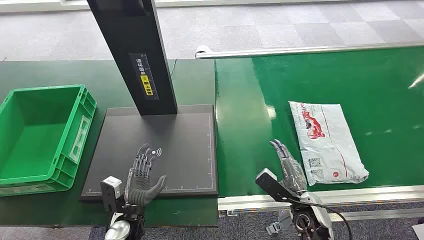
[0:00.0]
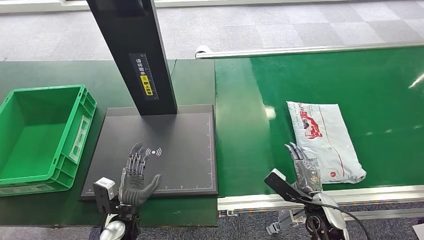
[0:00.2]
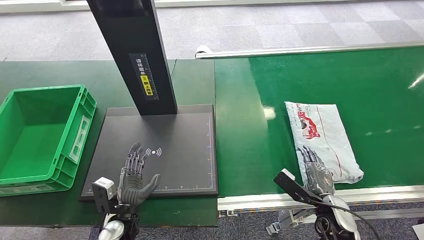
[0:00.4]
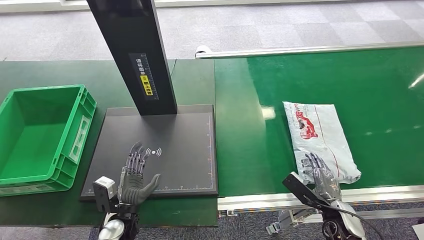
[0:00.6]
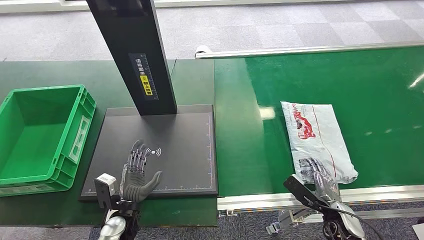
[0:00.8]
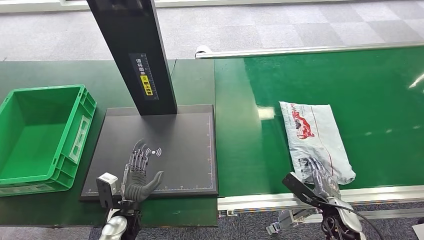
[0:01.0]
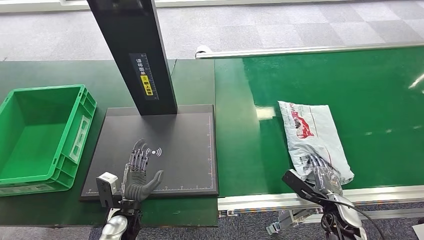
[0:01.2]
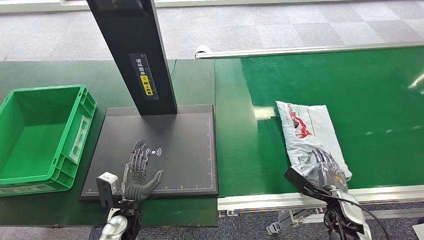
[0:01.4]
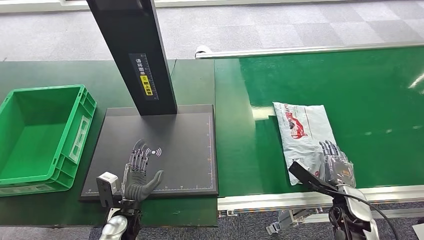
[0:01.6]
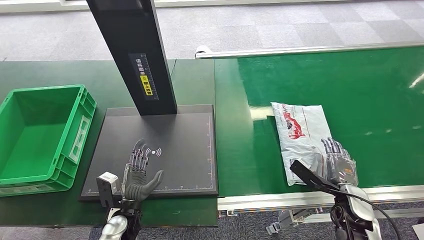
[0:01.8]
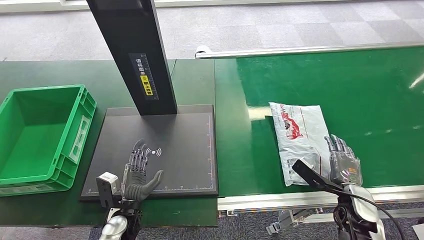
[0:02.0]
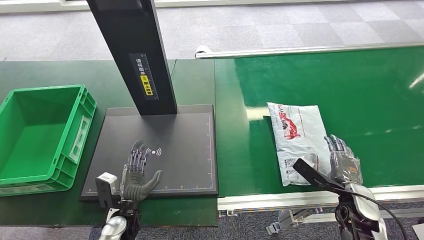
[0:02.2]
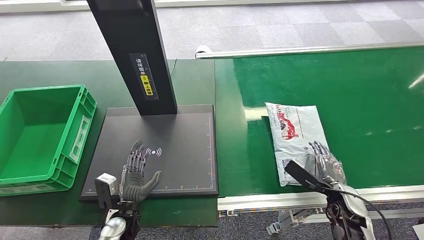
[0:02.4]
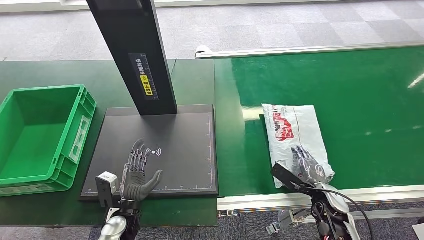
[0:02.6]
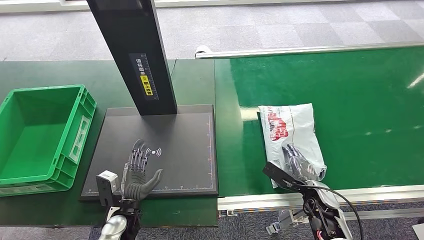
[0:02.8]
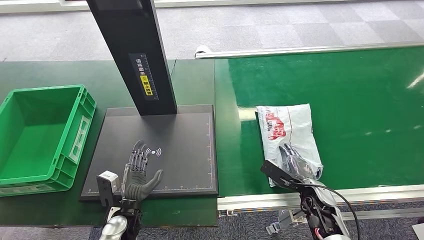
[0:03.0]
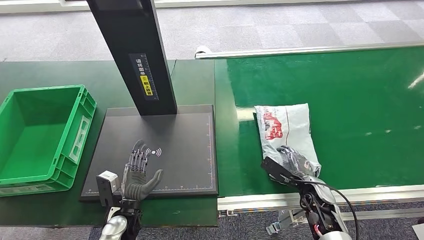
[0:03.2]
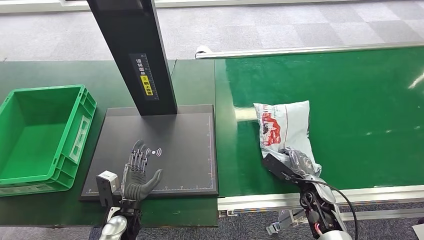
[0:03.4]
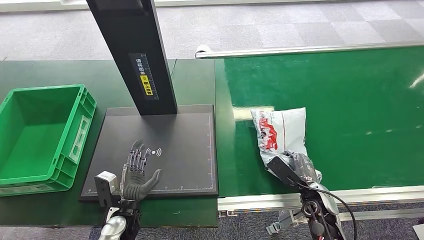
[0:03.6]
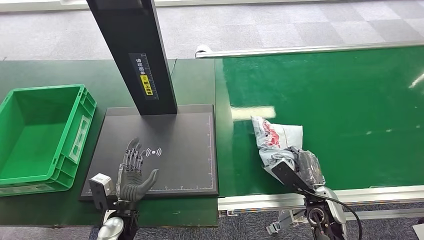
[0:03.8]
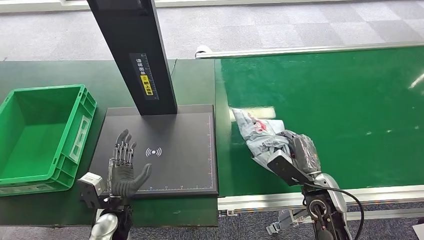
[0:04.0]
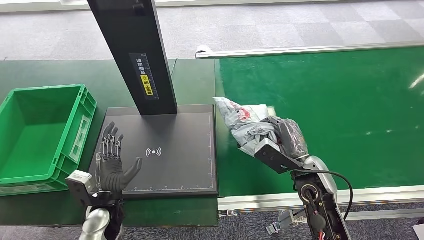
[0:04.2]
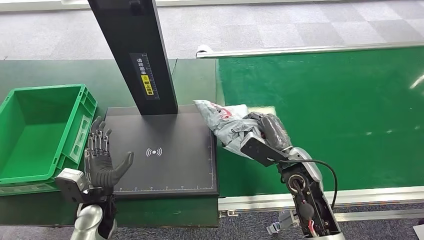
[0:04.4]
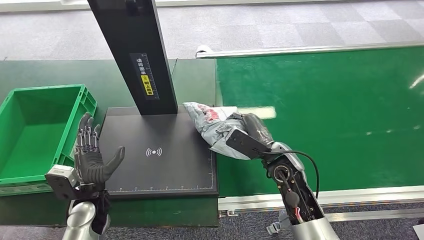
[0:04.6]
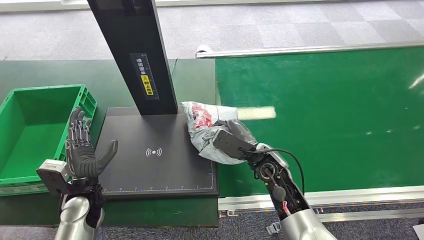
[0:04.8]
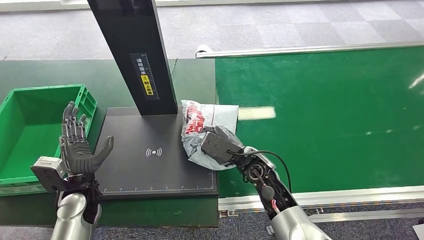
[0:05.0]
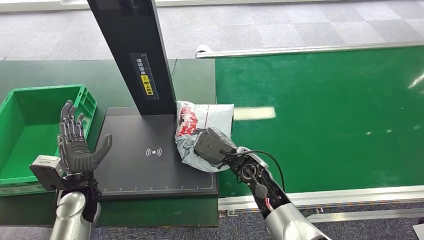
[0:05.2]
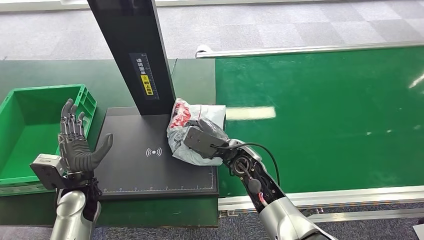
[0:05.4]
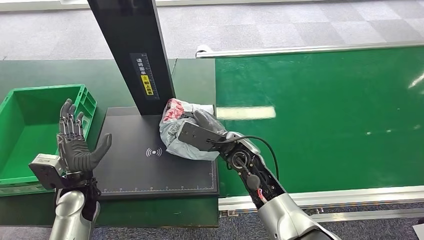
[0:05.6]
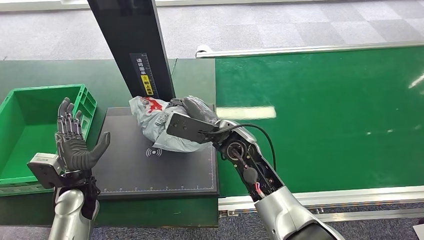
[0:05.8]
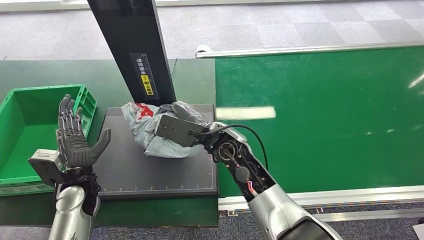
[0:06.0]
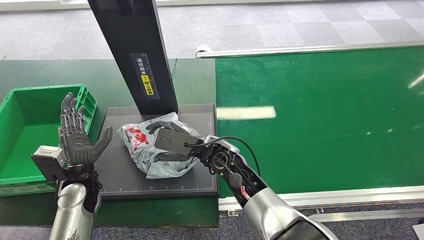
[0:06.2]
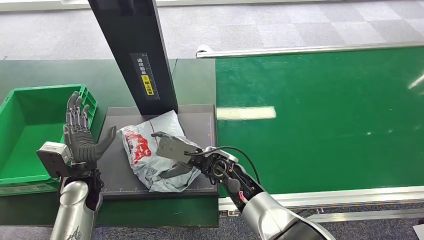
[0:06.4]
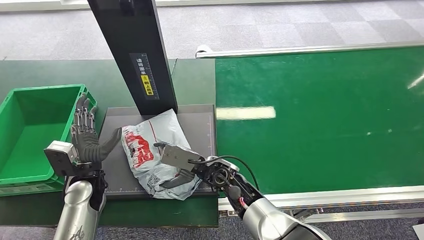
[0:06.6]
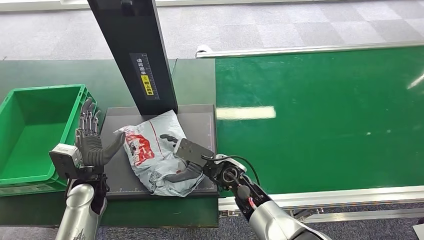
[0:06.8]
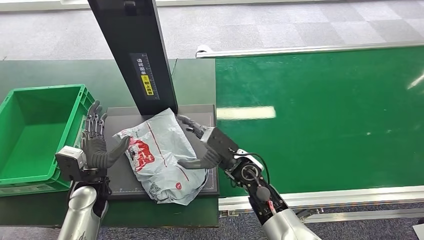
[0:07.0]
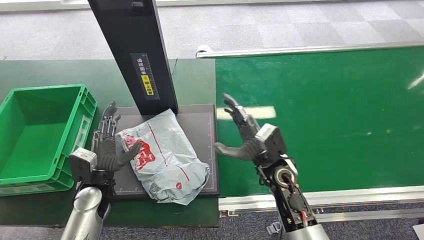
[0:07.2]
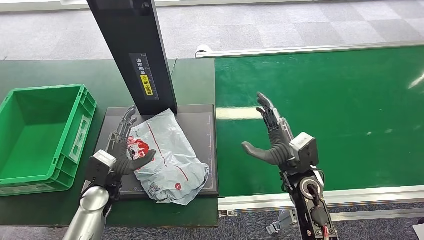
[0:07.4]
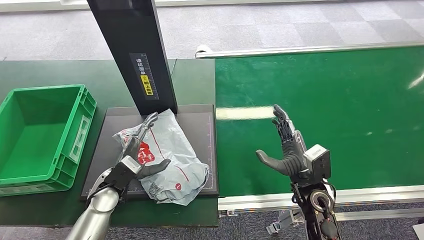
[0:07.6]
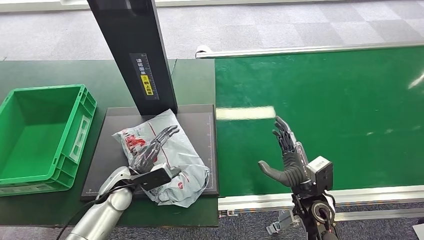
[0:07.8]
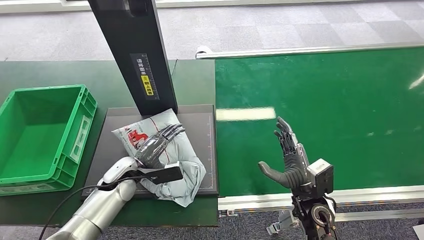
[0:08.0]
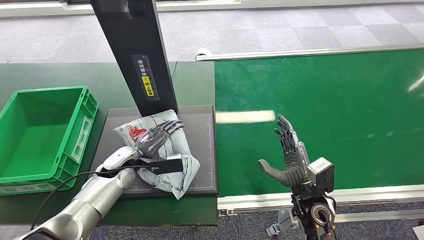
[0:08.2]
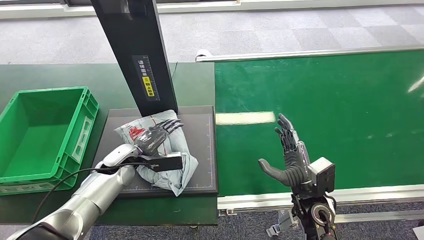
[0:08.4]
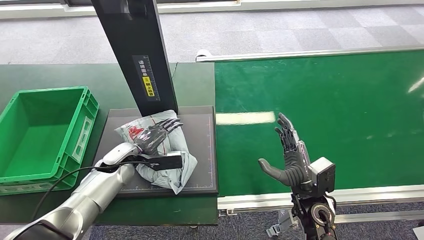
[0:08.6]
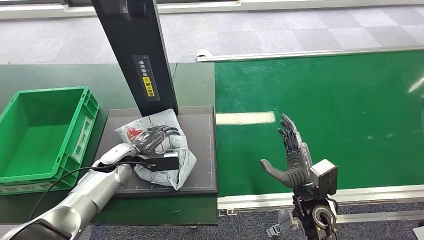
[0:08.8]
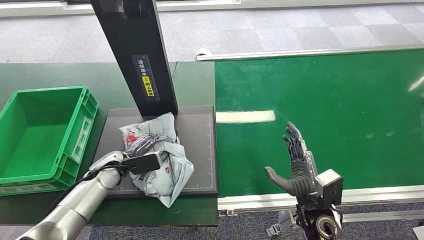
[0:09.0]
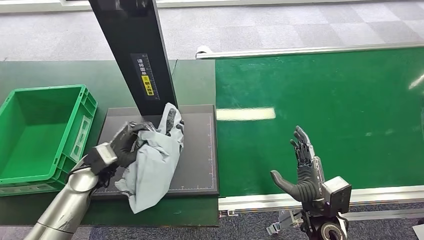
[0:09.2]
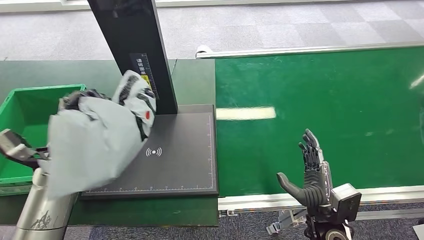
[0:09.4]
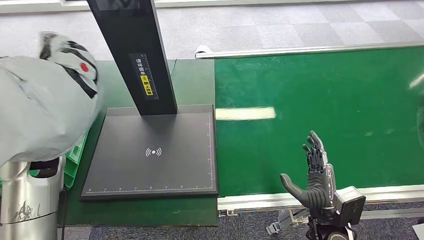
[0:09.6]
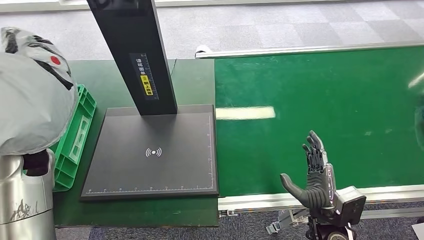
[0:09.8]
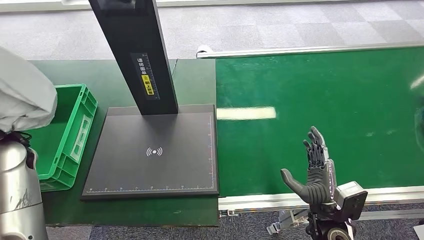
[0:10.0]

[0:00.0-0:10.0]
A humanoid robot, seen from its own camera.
Step, 0:00.0 to 0:04.6: Pick up the package from the conveyor belt.
Step, 0:04.8 to 0:07.6: Place the package onto the inbound machine.
Step, 0:07.8 to 0:09.6: Pick up the package from the inbound machine.
0:01.4 to 0:02.8: The right hand is displaced to the left by some 5 cm.
0:02.8 to 0:04.2: The left hand changes place by roughly 5 cm, while the right hand is displaced upward and to the left by some 15 cm.
0:05.8 to 0:07.2: The right hand goes some 15 cm to the right and downward.

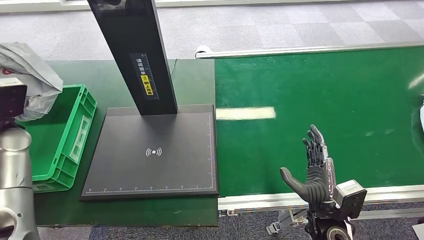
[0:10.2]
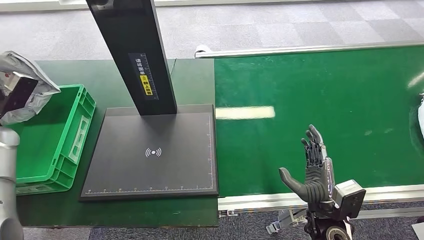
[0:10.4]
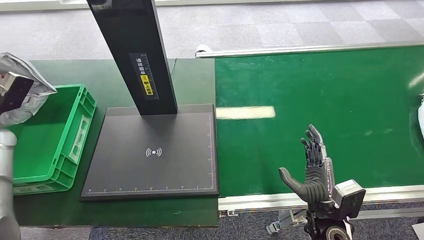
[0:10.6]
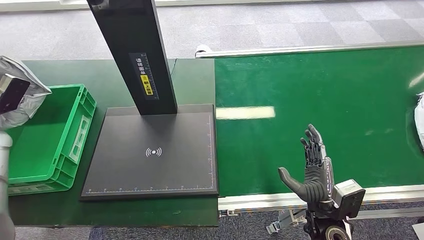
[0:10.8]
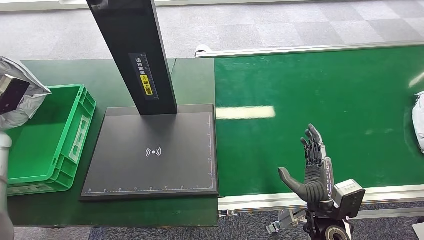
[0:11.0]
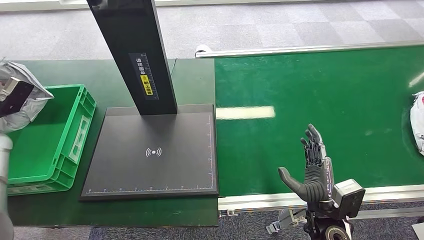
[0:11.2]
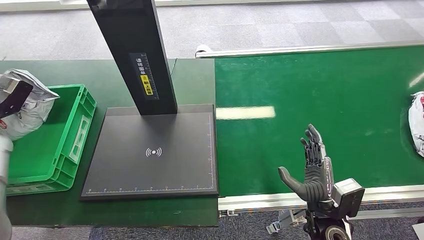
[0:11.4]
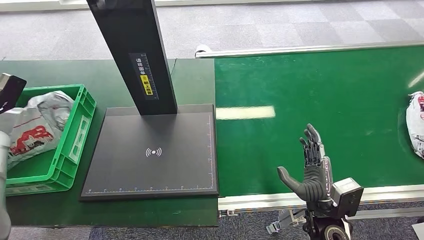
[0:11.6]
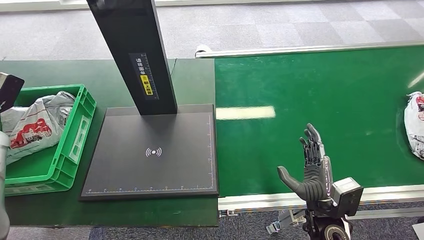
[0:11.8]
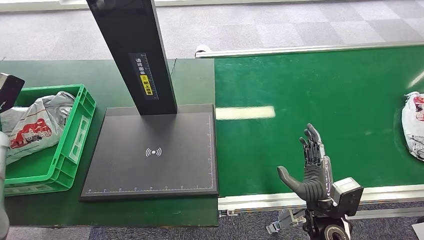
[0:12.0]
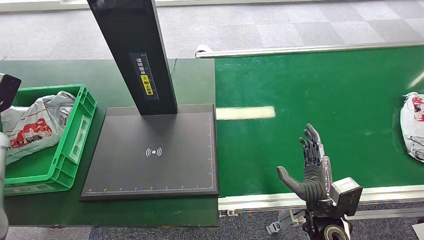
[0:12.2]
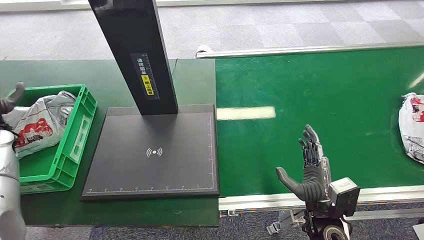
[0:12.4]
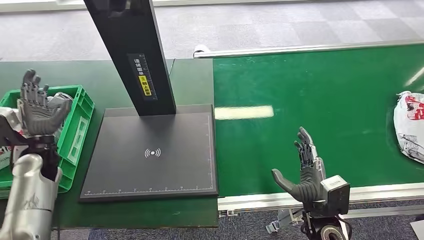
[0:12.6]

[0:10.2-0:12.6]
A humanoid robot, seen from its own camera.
Step, 0:10.2 to 0:12.4: Place the package into the parcel locker.
0:10.2 to 0:11.4: The left hand shifts some 10 cm to the left.
0:11.4 to 0:12.6: The left hand goes approximately 15 cm to the right and downward.

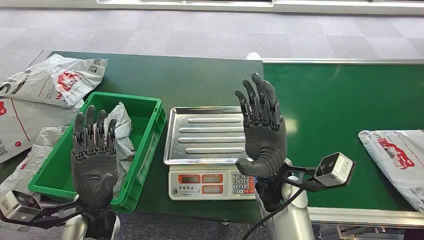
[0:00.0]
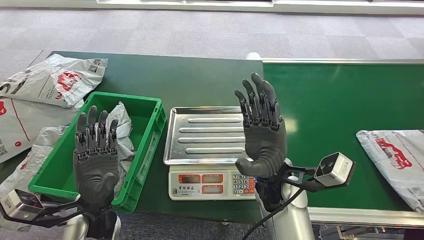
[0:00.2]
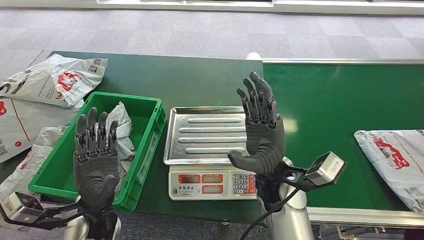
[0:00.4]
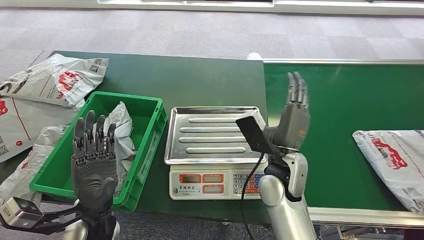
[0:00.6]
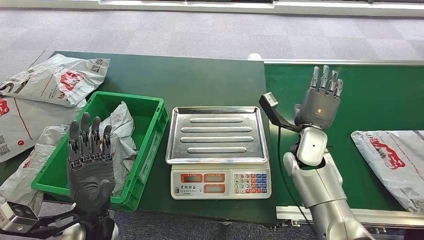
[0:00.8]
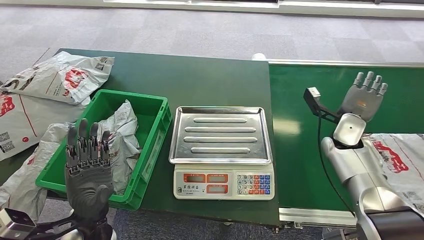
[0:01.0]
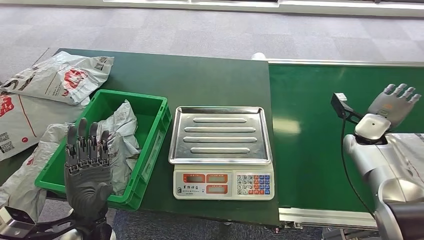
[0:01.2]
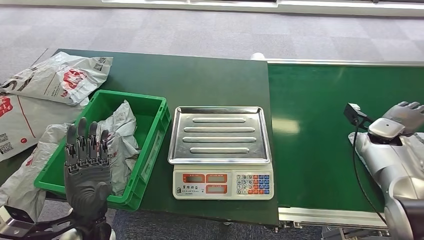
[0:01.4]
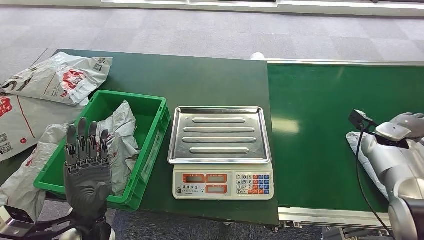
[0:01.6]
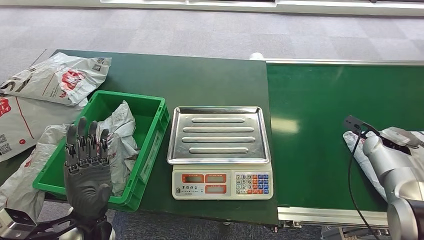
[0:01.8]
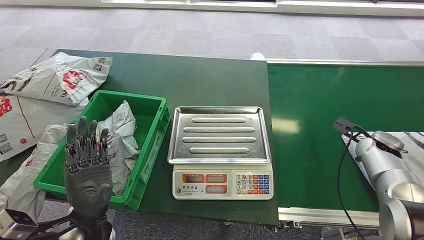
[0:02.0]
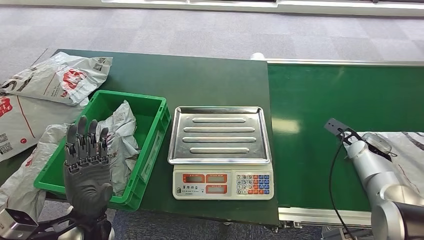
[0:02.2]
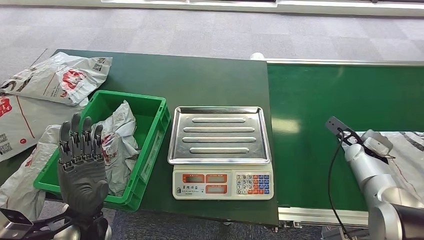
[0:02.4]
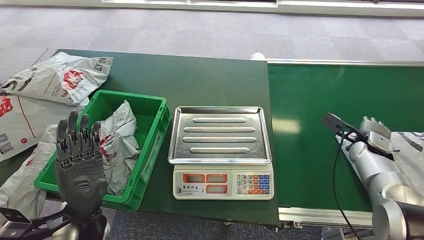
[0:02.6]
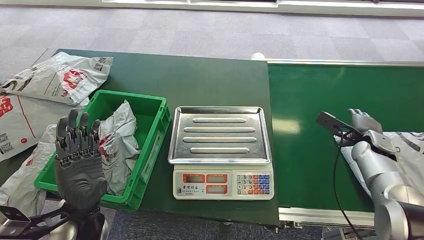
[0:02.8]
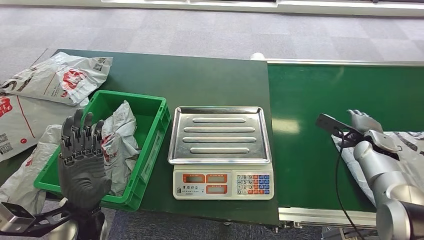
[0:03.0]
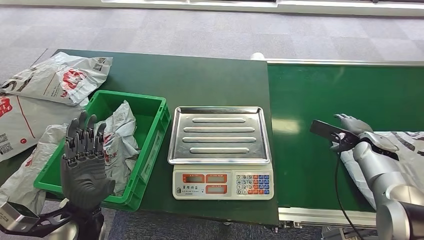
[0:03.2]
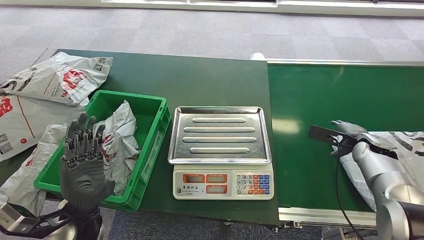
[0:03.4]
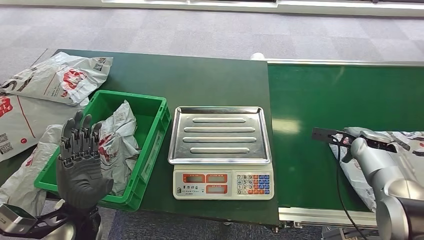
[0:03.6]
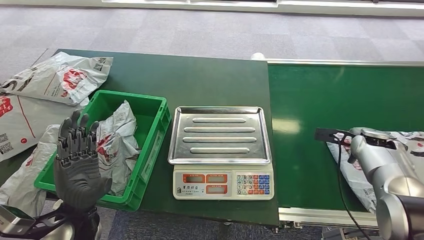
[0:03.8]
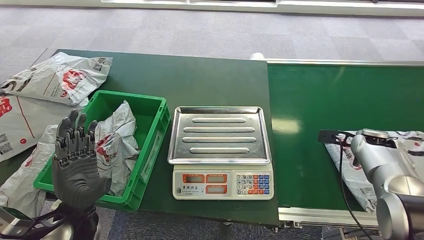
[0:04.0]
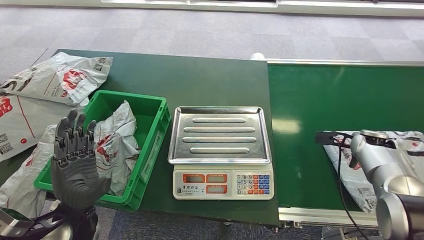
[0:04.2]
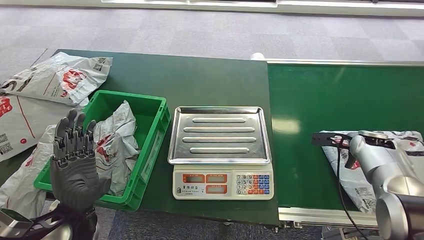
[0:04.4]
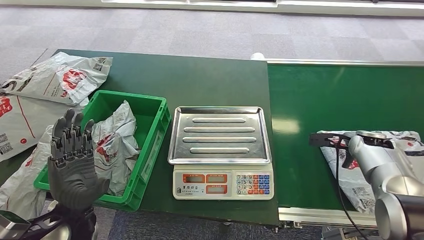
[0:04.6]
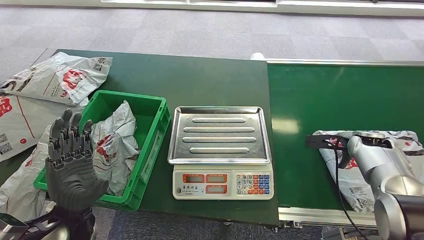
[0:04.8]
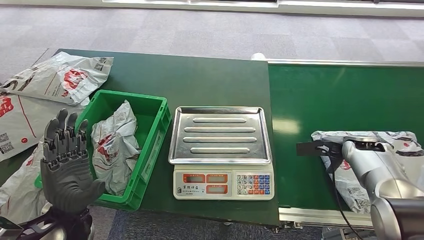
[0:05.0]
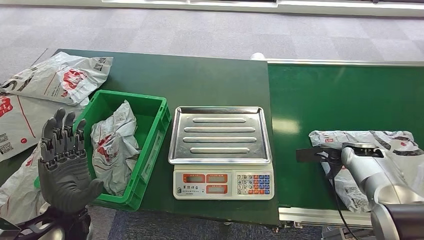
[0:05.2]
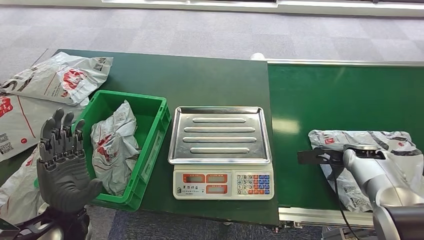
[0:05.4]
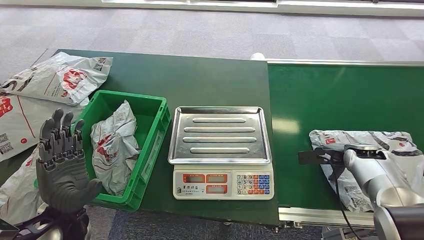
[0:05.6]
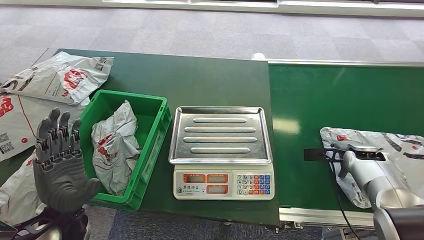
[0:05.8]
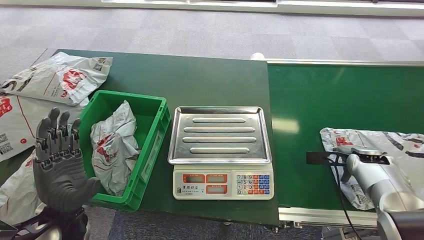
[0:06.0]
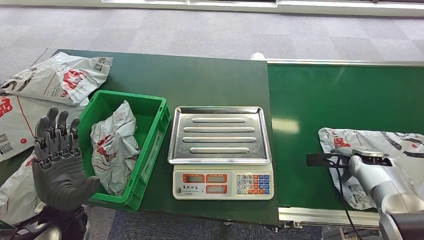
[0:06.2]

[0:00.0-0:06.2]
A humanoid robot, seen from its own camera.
0:04.6 to 0:06.2: The right hand changes place by about 5 cm.
